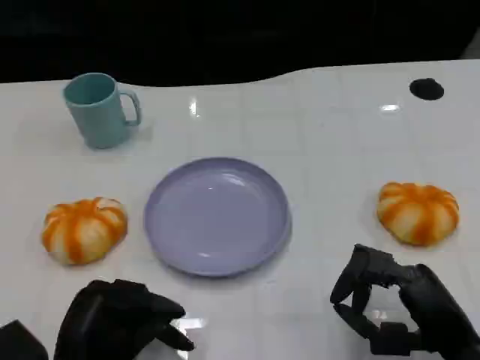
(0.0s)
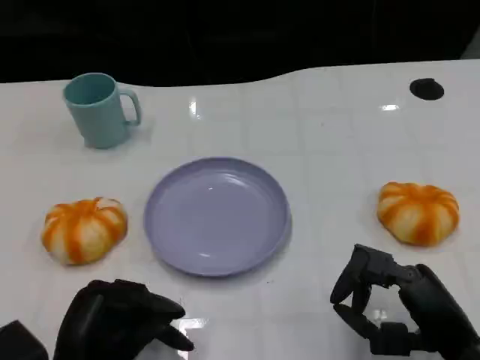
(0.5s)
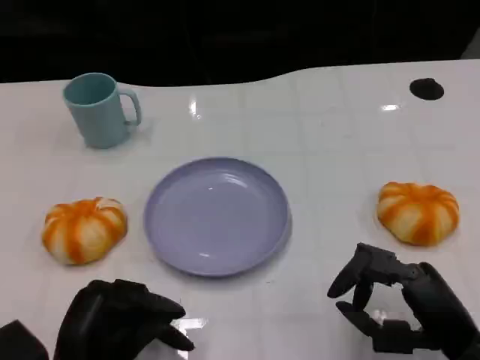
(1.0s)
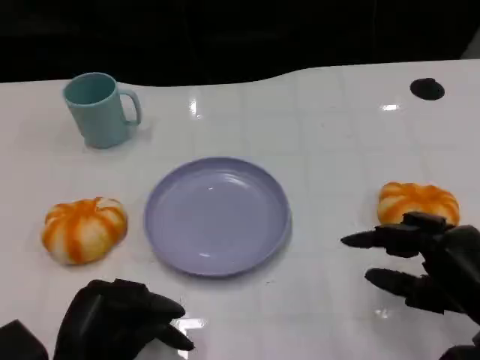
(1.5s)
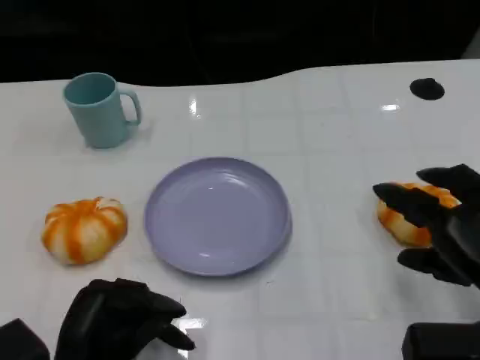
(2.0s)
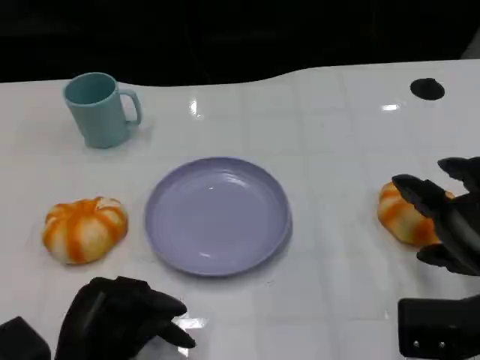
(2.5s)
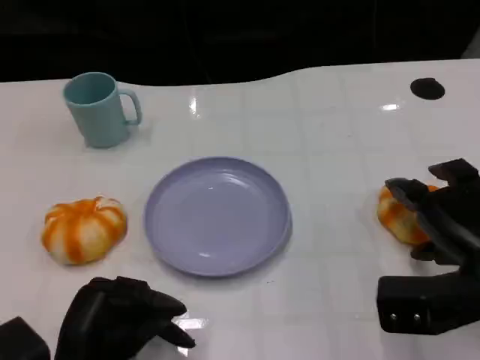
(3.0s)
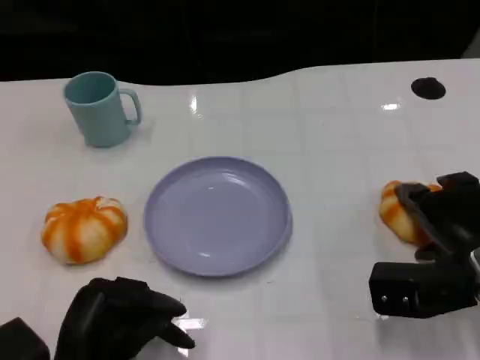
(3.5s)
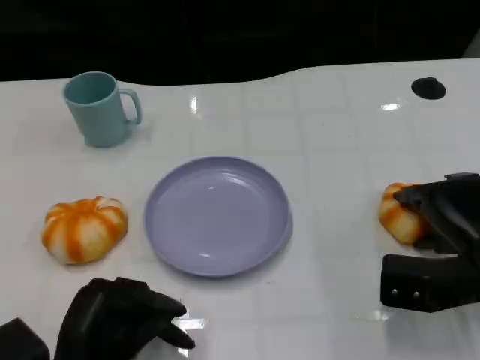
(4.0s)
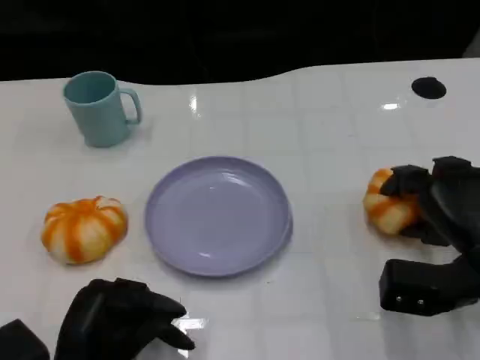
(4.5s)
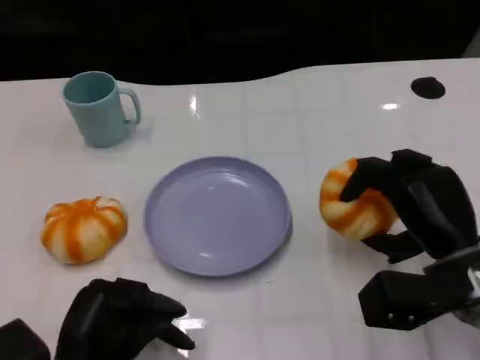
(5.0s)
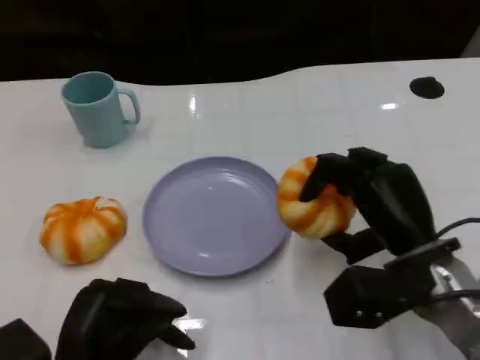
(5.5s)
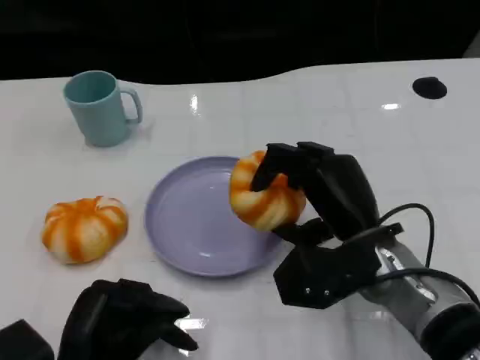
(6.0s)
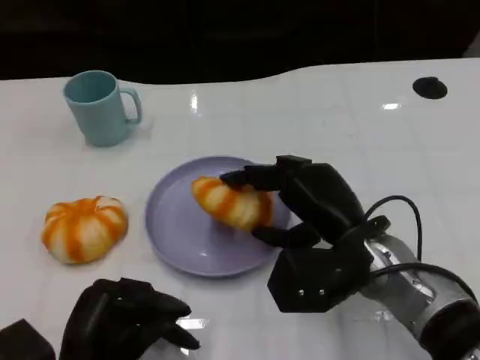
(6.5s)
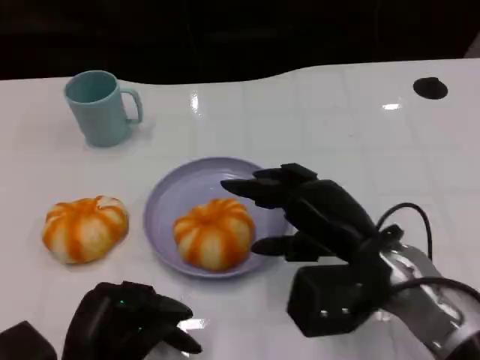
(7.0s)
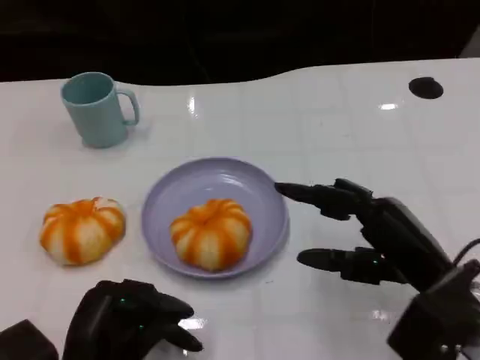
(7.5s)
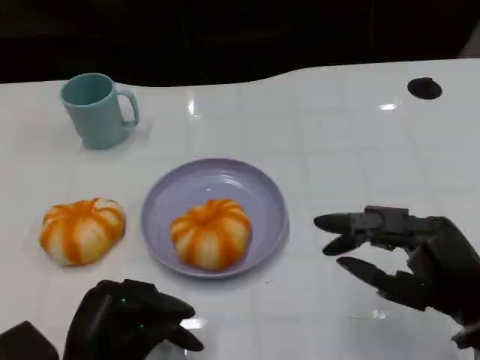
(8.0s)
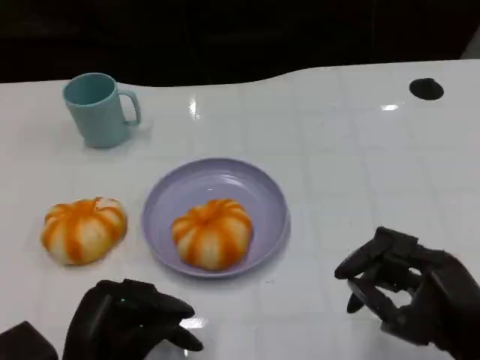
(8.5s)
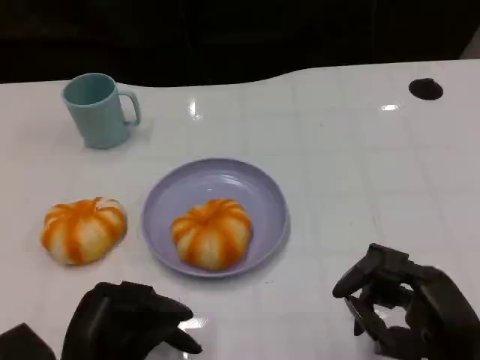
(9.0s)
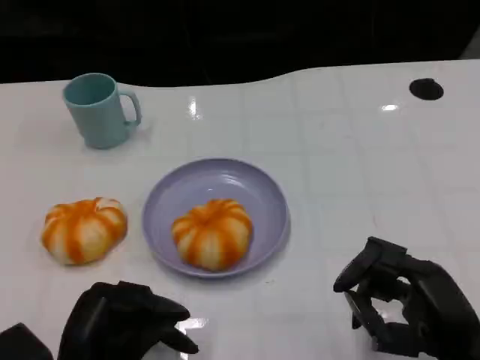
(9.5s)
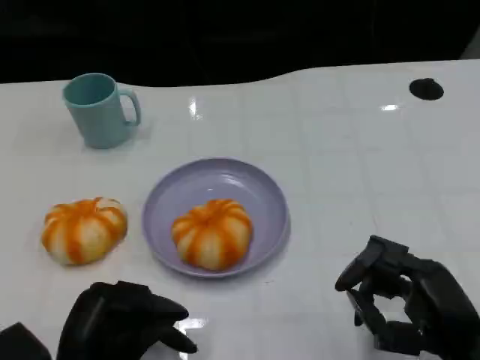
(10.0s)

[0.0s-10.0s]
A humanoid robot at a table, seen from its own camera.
Task of the whole recording: Grasp the bread from the table and place it into the plate.
0.0s to 2.0s: The right hand moves upward, some 5 cm.
2.0s to 4.0s: The right hand shifts about 5 cm forward.
4.0s to 6.0s: The right hand goes about 15 cm to the left.
6.0s to 8.0s: The right hand is displaced to the right and backward by roughly 15 cm.
8.0s to 10.0s: The hands make only small movements.

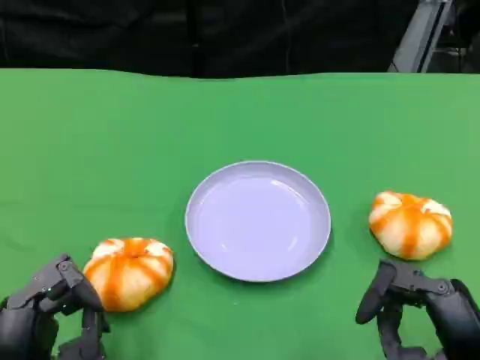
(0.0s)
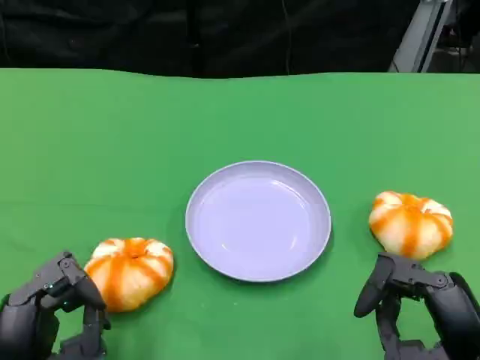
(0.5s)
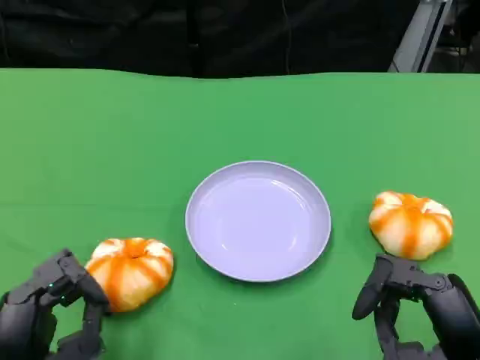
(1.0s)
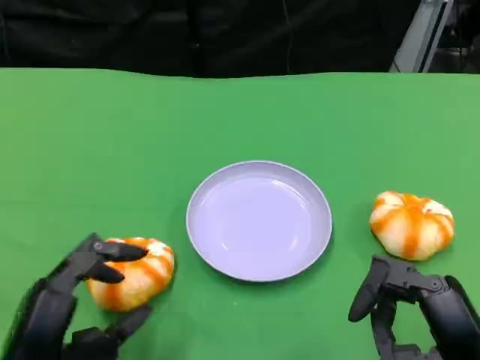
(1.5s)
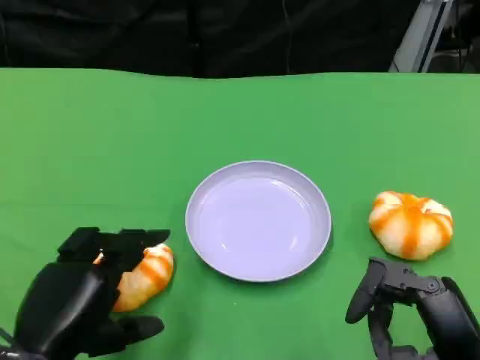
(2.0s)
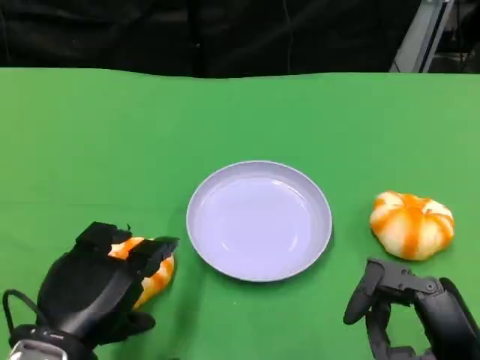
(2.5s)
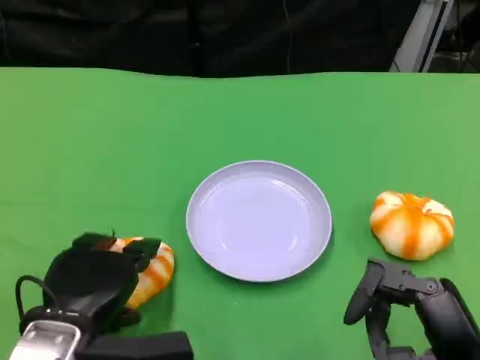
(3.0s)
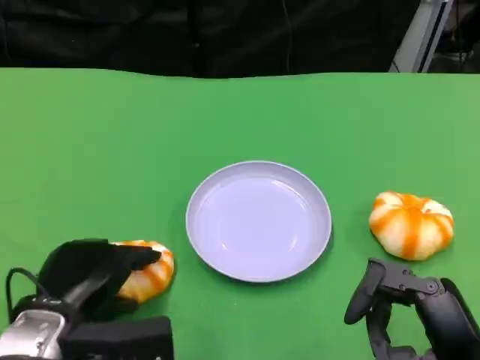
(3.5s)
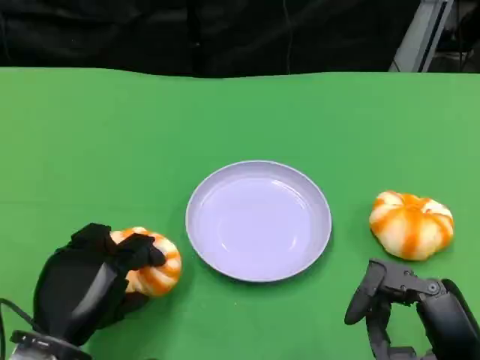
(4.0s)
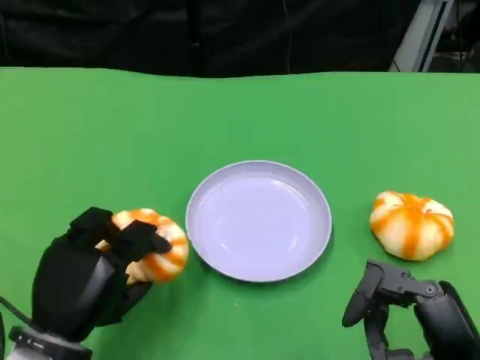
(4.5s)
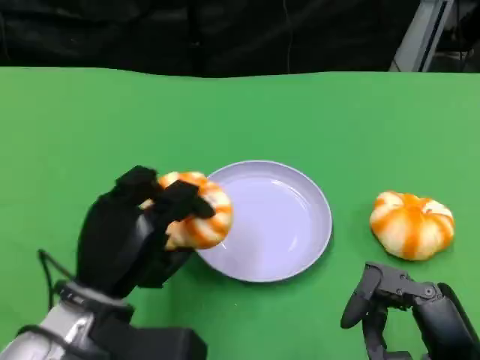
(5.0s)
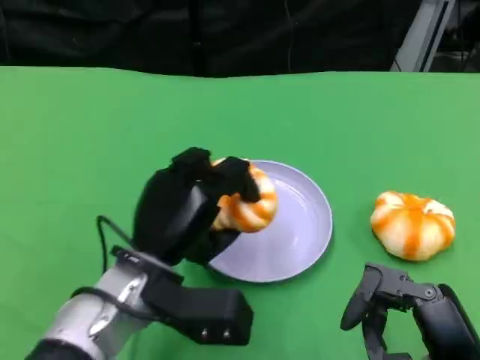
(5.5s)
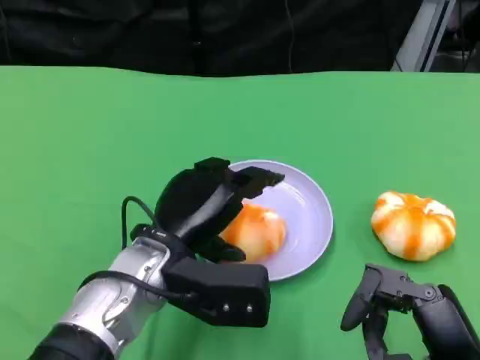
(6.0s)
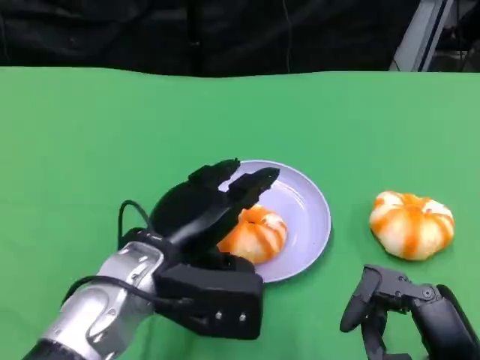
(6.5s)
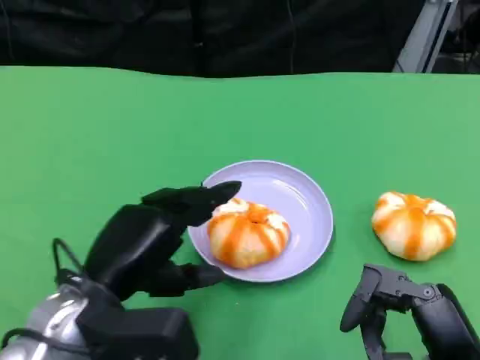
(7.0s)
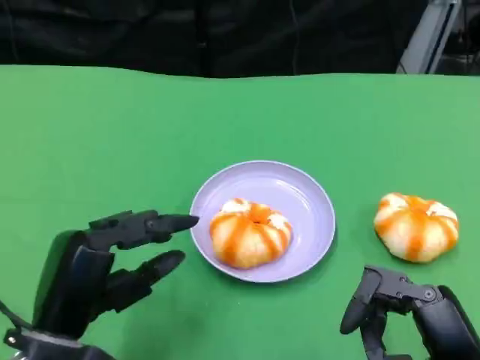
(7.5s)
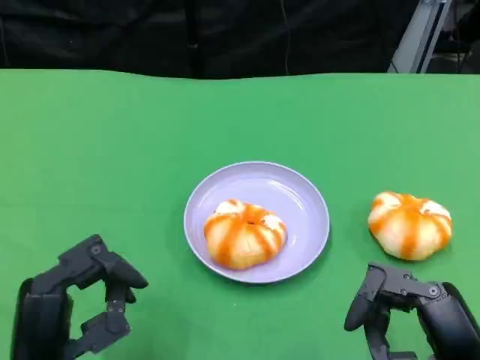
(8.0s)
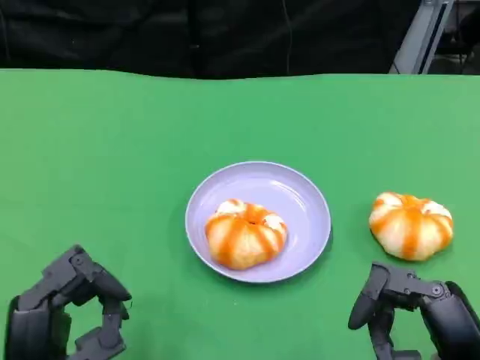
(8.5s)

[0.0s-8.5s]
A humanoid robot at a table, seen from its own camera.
Task of the whole recording: Grasp the bread from the table and place it into the plate.
0.0s to 2.0s: The left hand is displaced upward by approximately 5 cm.
2.0s to 4.0s: The left hand travels downward by roughly 5 cm.
4.0s to 6.5s: The left hand moves to the right, upward and forward, approximately 15 cm.
6.5s to 8.5s: The left hand shifts some 15 cm backward and to the left.

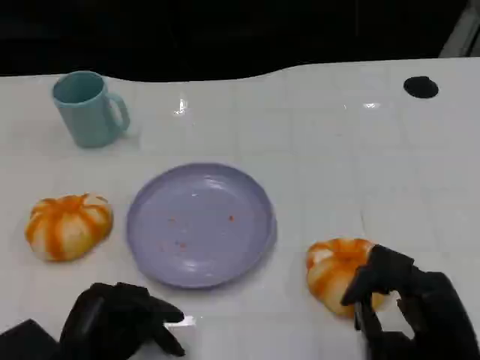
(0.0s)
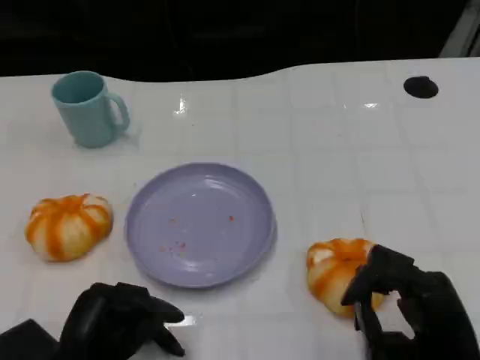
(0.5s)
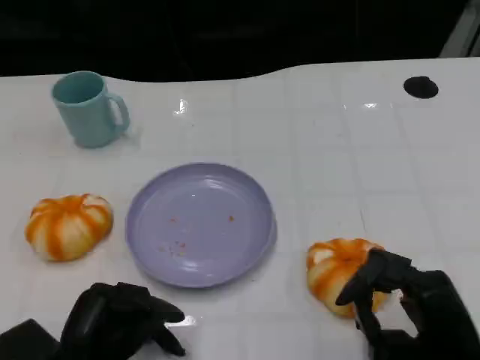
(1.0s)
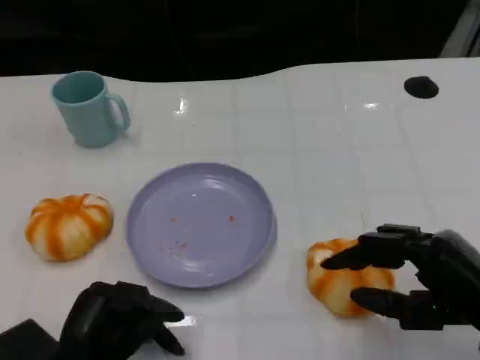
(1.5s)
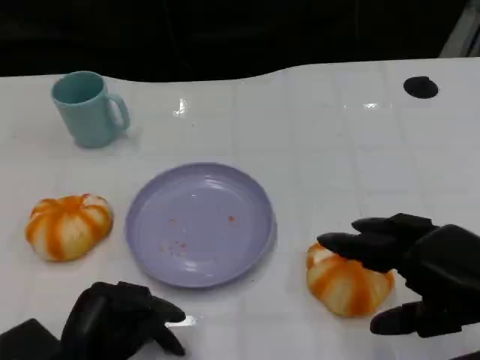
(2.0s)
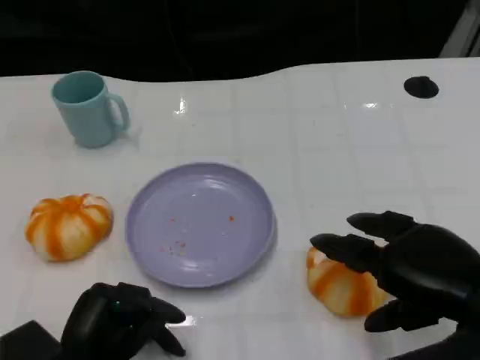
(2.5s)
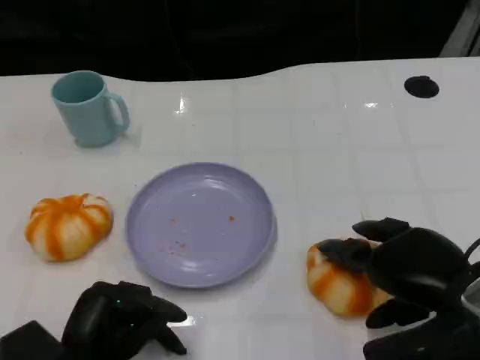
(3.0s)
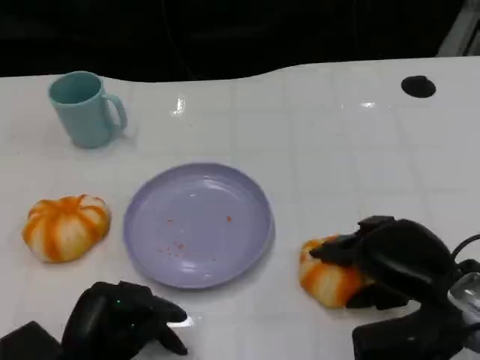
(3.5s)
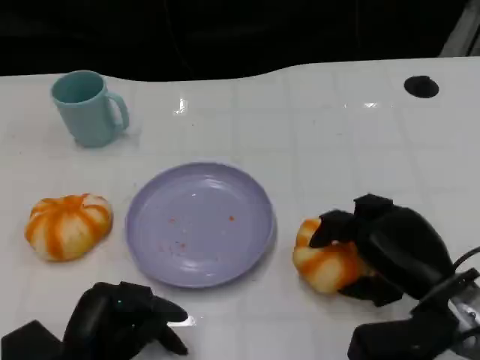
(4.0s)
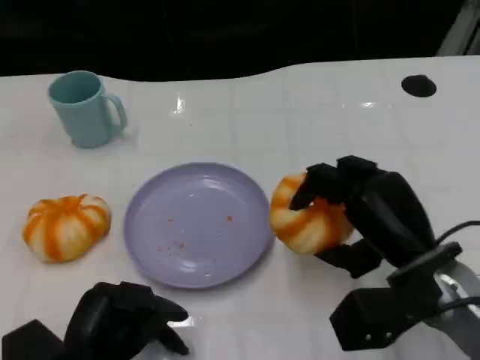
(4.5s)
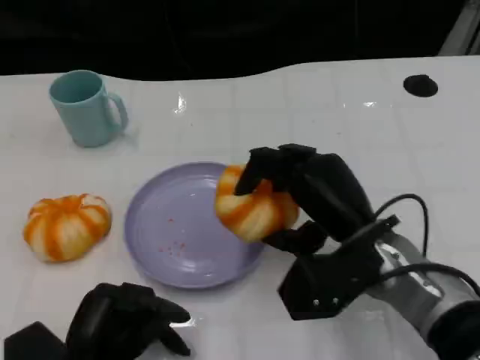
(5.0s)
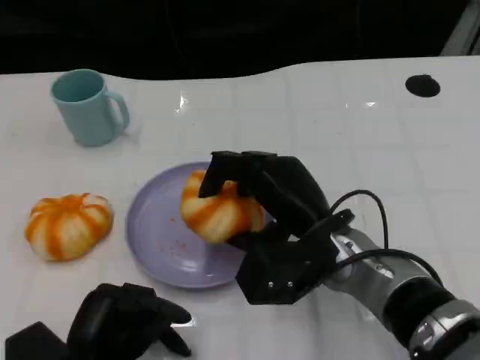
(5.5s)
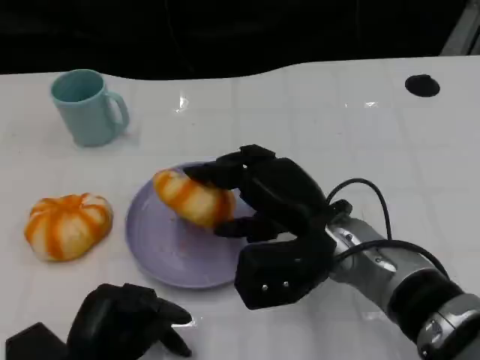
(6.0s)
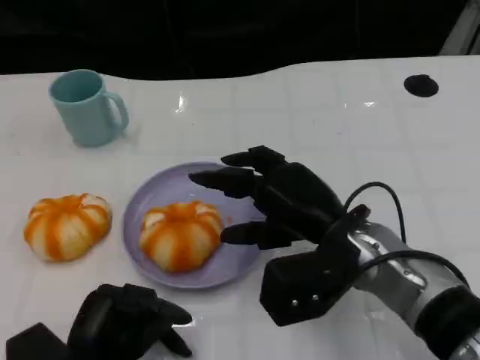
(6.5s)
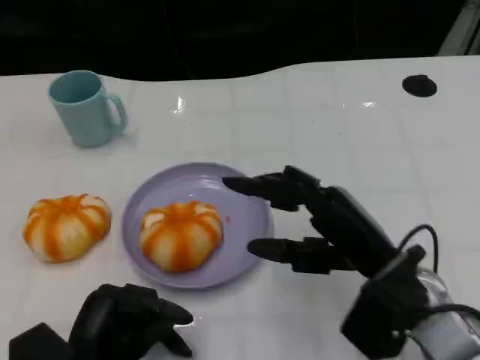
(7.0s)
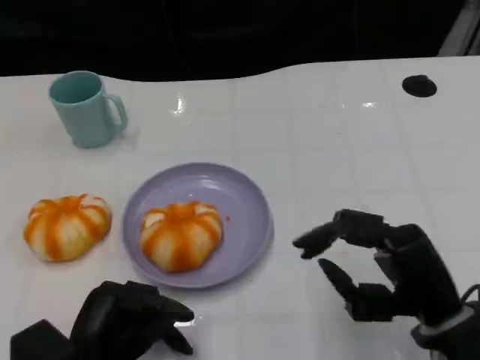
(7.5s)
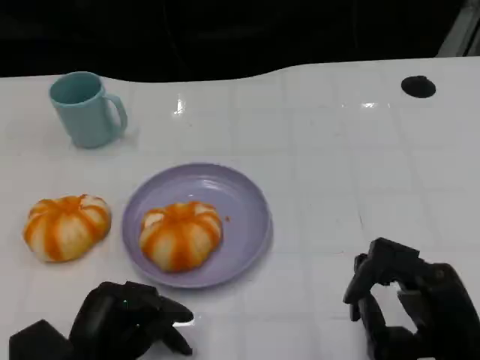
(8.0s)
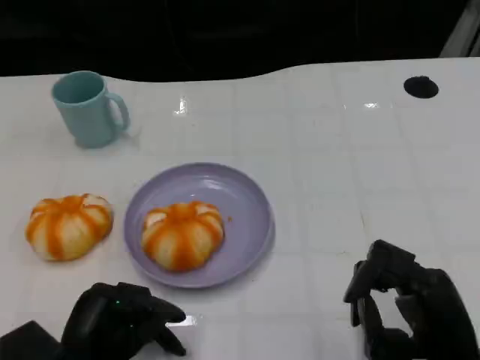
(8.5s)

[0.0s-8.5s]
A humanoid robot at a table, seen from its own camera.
Task of the whole recording: Grasp the bread from the table and place it into the plate.
0.0s to 2.0s: The right hand goes about 10 cm upward.
2.0s to 4.0s: The right hand shifts some 10 cm downward and forward.
4.0s to 6.5s: The right hand is displaced to the left by roughly 10 cm.
6.5s to 8.5s: The right hand heads backward, to the right and downward, covering some 15 cm.
